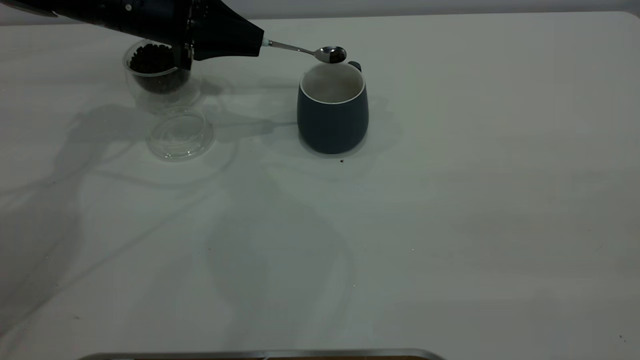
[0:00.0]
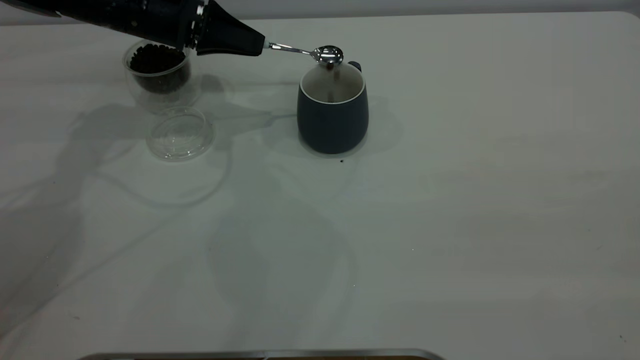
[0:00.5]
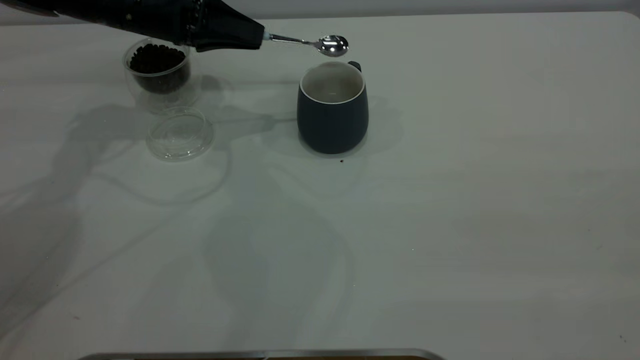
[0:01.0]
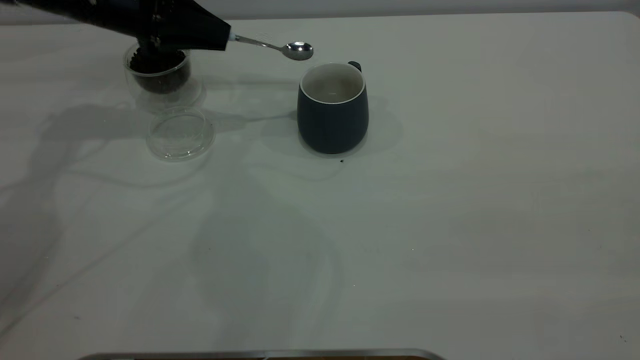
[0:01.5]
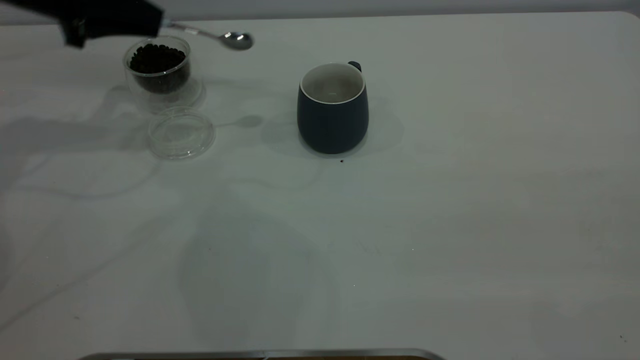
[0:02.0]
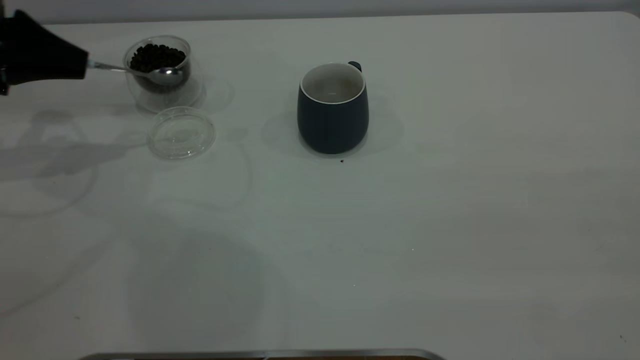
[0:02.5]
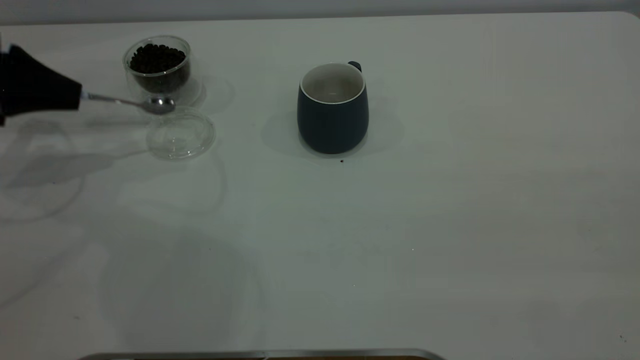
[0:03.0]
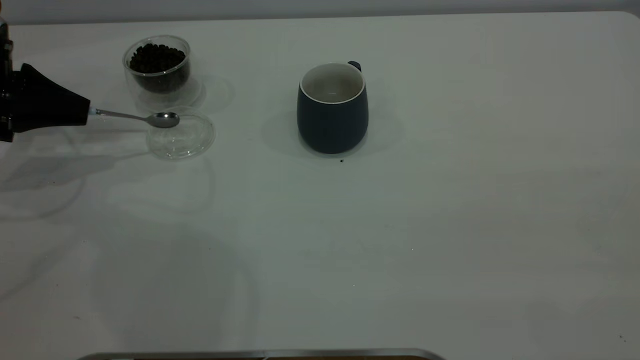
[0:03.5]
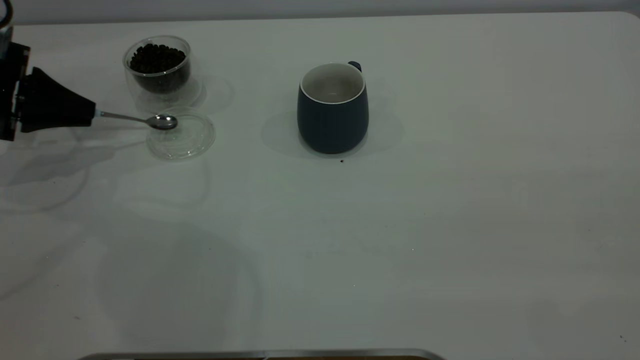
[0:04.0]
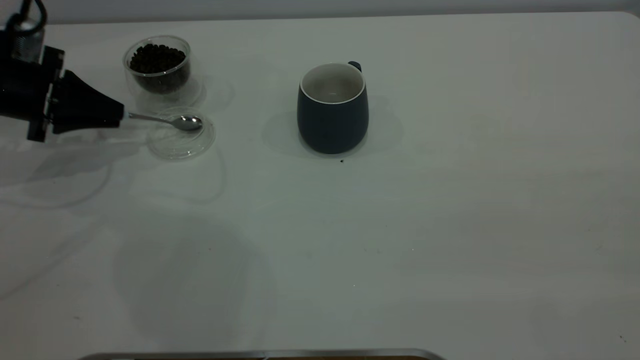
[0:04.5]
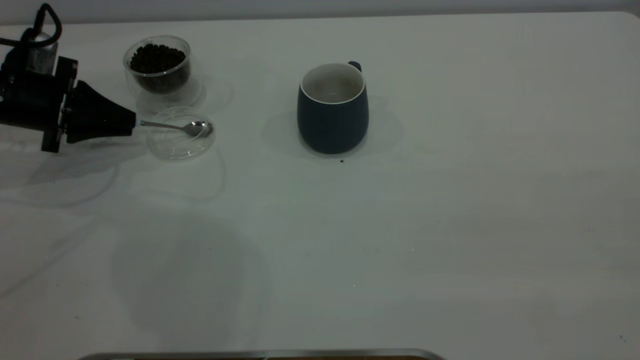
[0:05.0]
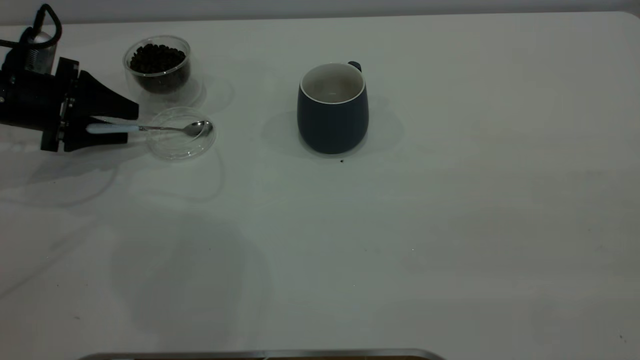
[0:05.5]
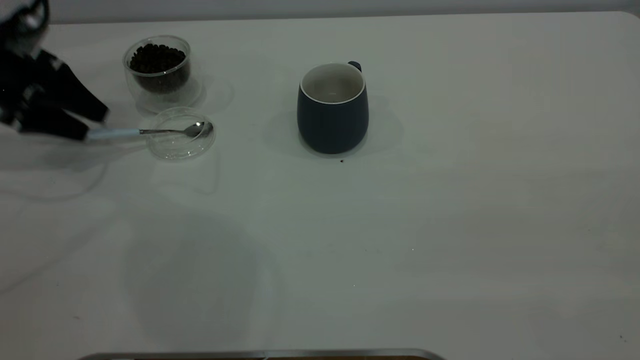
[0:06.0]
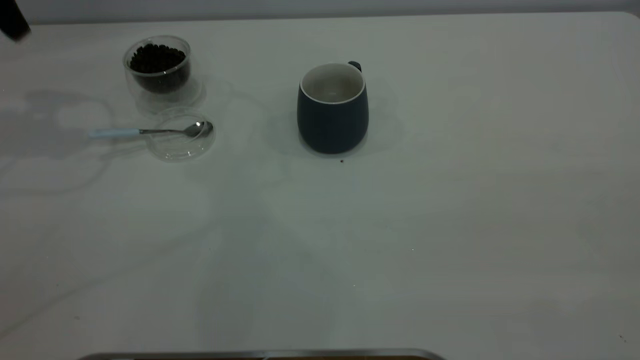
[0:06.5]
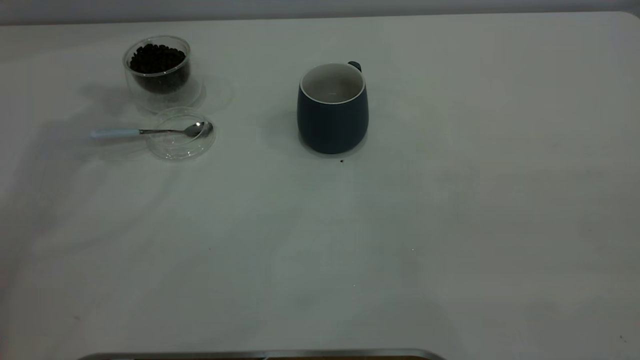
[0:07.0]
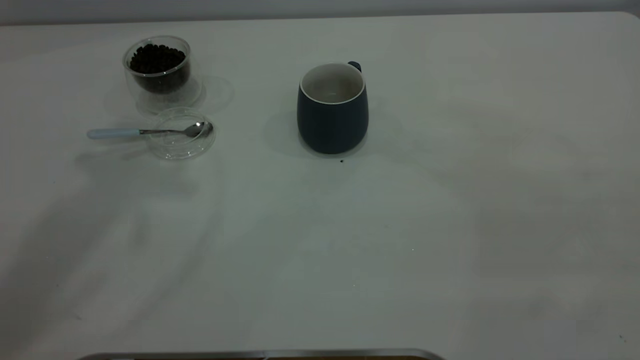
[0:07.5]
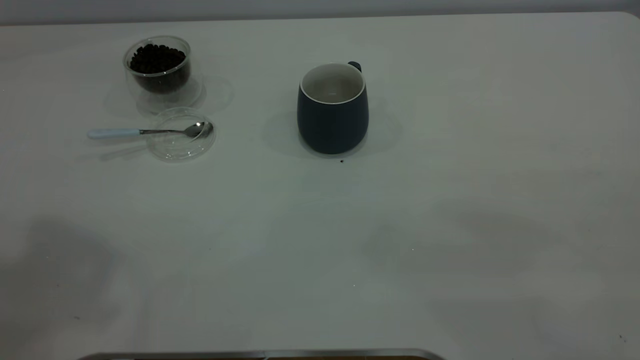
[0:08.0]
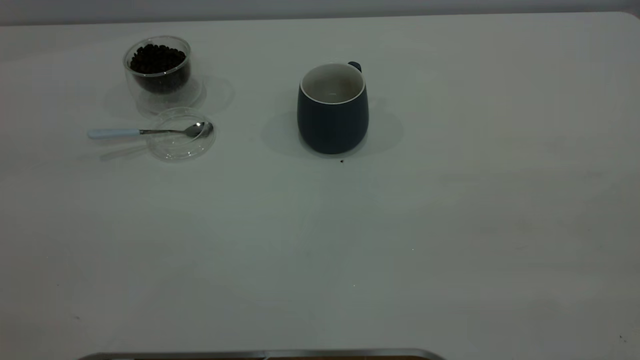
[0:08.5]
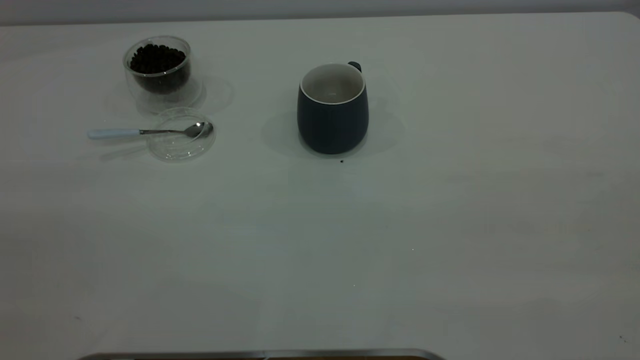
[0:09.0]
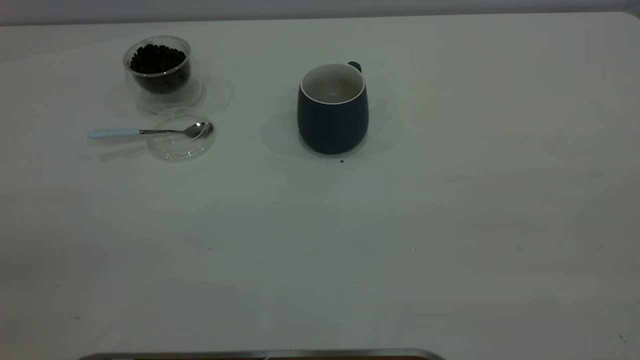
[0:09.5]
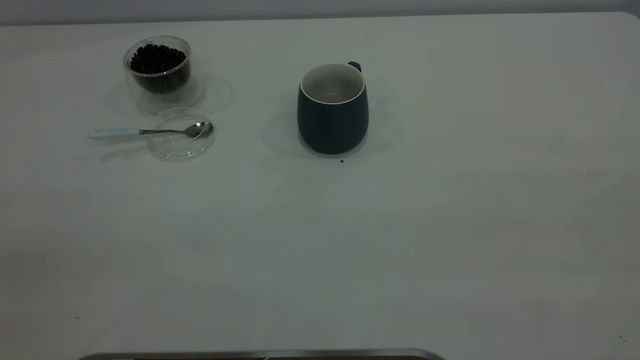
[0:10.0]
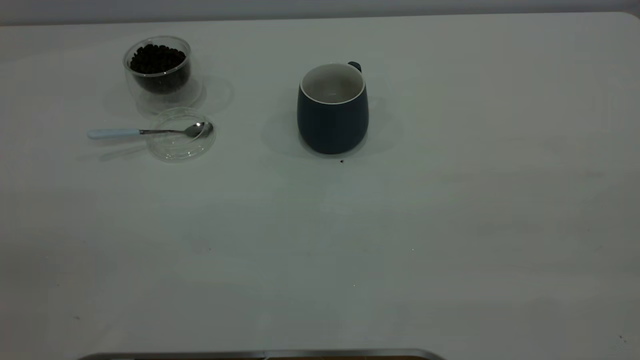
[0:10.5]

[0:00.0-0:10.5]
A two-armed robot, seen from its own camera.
Task of the whole recording: the right gripper place the grey cup in the center of the table, the left gripper take the blue spoon from the cup lid and scoop out the coffee beans from the coffee cup and put them into the grey cup, the left gripper put the spoon back into the cup lid.
Step, 0:01.5 to 0:06.0: Place the spoon back in its original place.
0:00.0 to 0:02.0: The left gripper goes roughly 10 cm to the left.
0:02.0 to 0:04.0: The left gripper is displaced to the left and downward by approximately 10 cm.
0:04.0 to 0:06.5: The left gripper moves upward, roughly 20 cm, and opens up.
